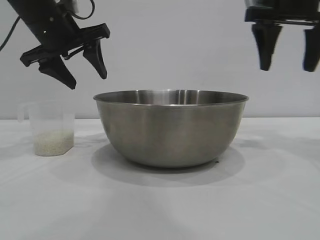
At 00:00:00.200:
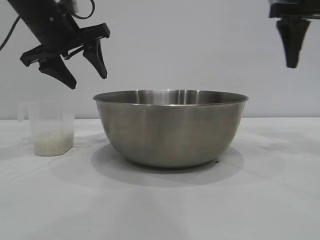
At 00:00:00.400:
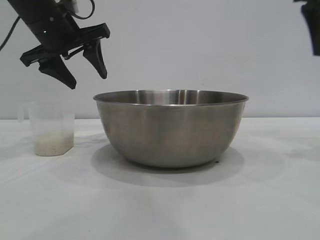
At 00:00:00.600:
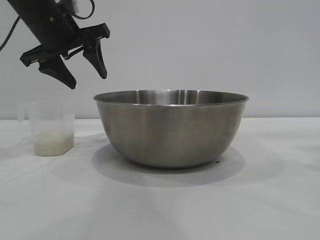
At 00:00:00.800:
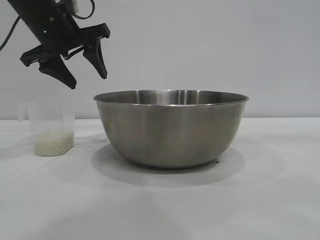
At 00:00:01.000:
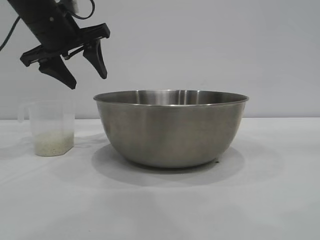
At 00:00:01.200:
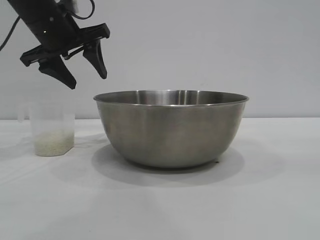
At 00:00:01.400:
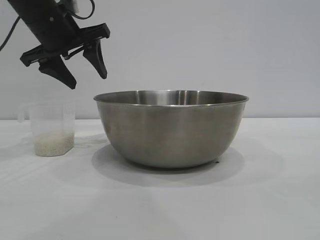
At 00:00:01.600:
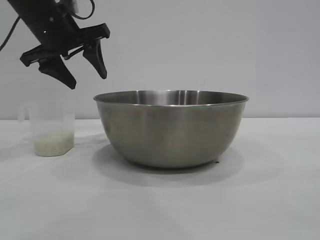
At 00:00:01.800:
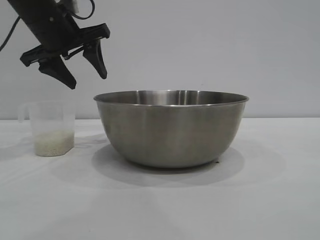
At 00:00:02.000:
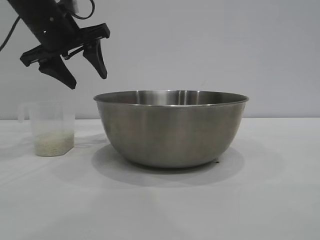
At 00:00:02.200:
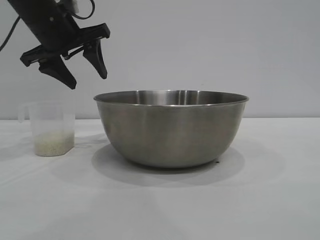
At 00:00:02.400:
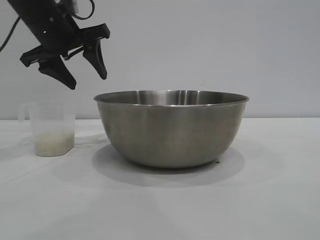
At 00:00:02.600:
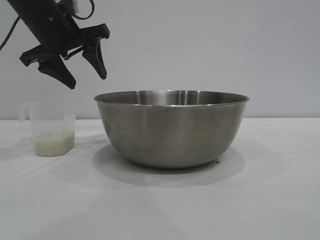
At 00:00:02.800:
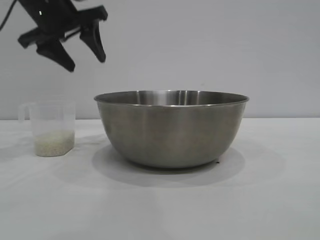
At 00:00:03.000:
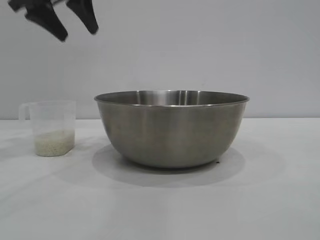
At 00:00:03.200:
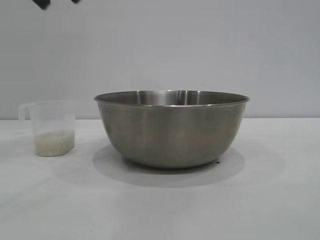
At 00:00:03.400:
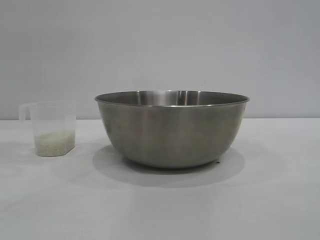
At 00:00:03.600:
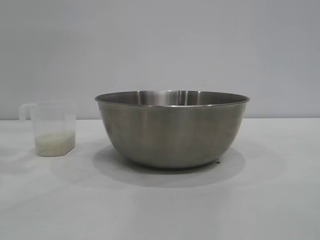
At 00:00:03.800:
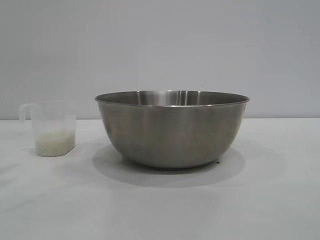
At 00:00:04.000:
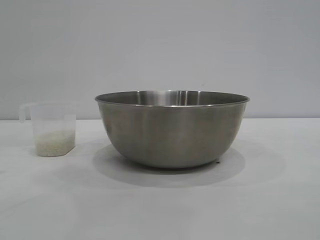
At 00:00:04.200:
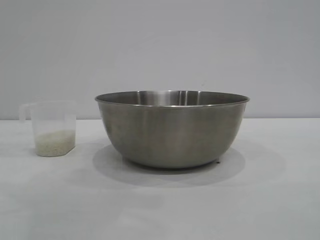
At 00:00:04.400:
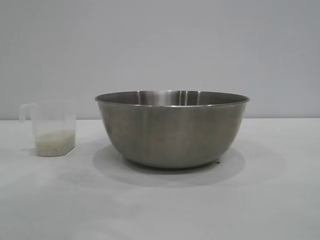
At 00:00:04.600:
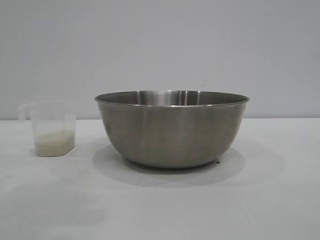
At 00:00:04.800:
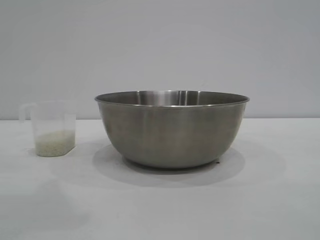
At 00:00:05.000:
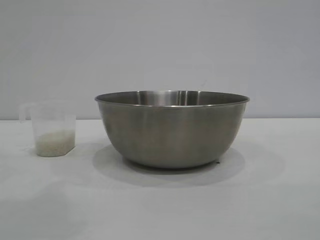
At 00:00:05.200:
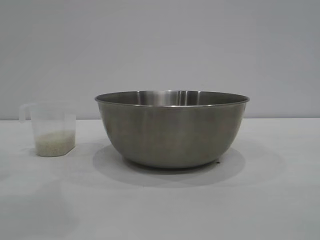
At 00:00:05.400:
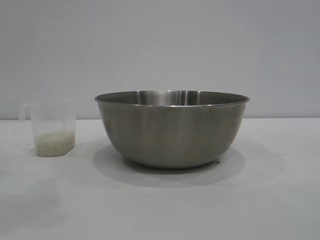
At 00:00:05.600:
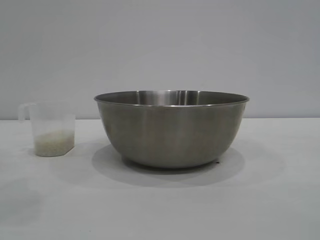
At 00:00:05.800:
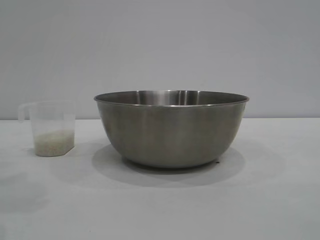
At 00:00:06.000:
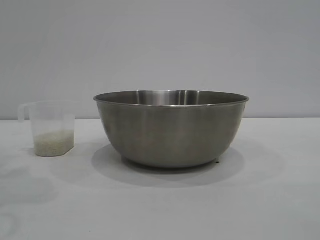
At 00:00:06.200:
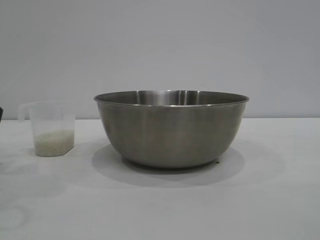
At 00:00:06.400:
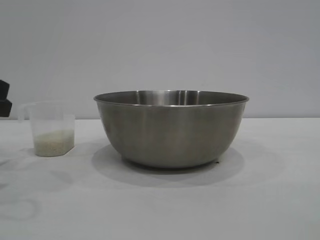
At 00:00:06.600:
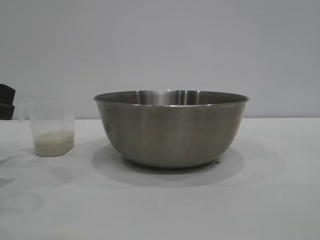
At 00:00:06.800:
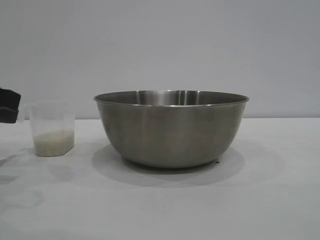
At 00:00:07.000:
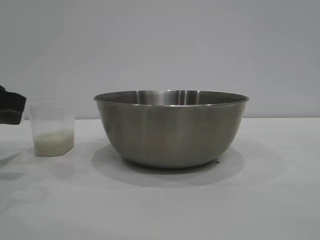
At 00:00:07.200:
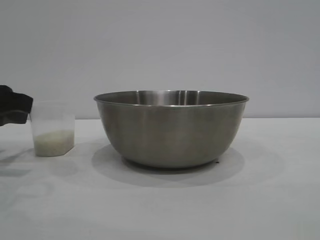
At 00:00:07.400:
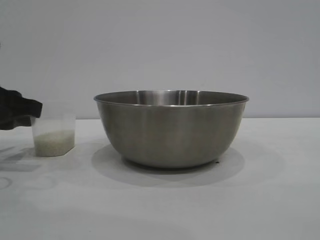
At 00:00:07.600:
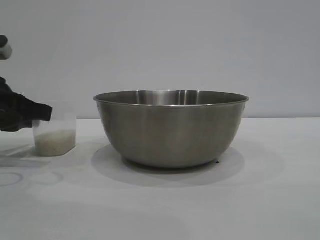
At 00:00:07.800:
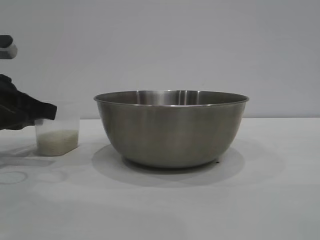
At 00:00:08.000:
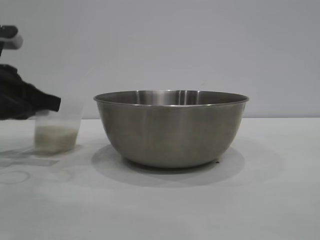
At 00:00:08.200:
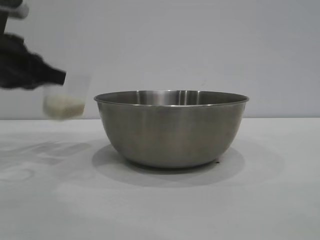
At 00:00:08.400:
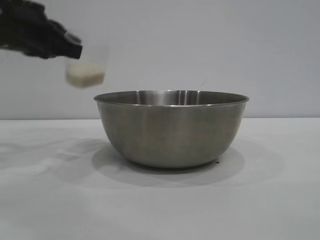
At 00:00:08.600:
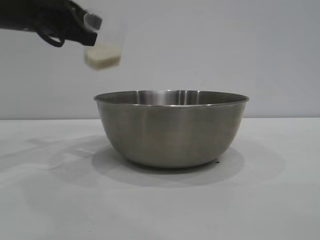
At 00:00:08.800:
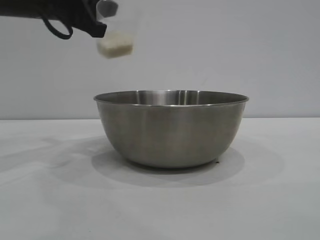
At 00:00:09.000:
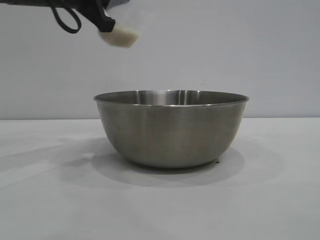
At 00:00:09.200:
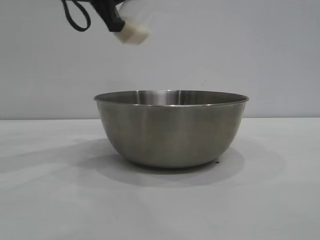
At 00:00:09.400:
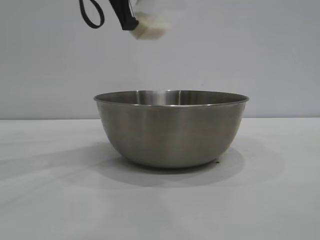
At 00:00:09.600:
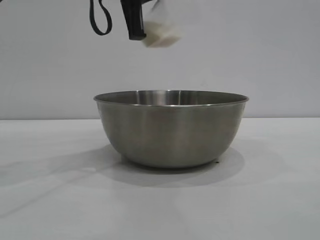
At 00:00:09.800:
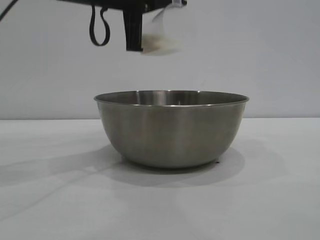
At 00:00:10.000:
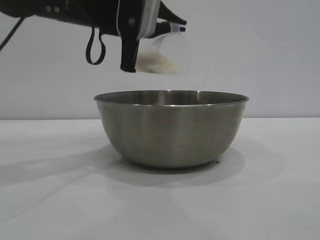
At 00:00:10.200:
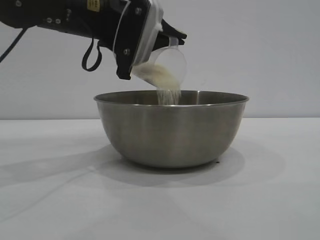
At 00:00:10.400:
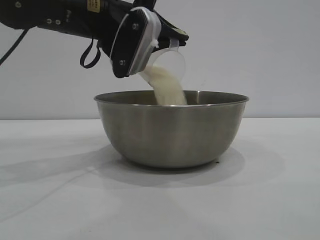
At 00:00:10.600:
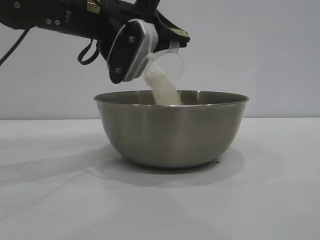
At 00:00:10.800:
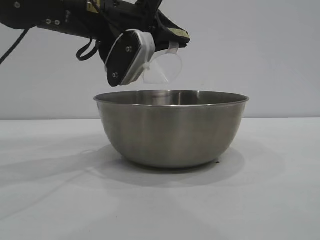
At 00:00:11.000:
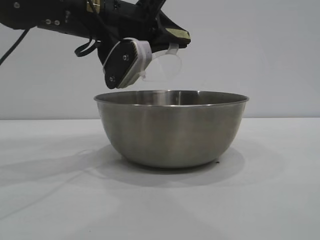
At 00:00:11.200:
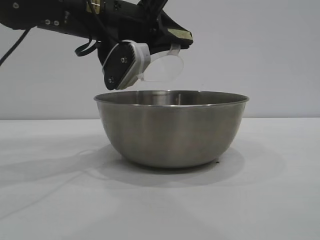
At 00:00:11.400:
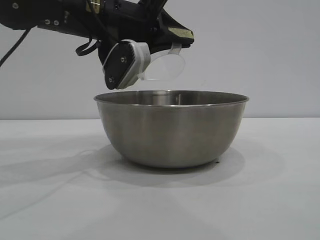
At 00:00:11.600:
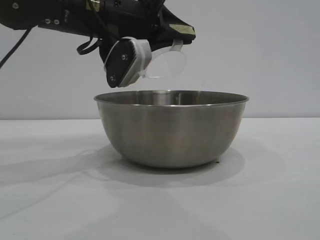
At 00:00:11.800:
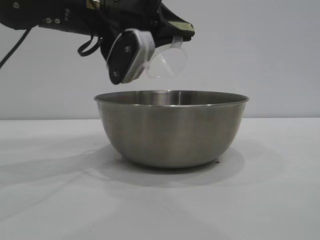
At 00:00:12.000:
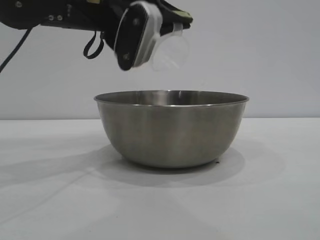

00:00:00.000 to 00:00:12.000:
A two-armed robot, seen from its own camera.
Task of the whole recording: the right gripper grasp the rice container and place it in the center of the table, the left gripper grasp the rice scoop and pour the rice into the rice container.
Step, 00:00:00.000 to 00:00:08.000: Pick up the cup with rice in it with the left gripper.

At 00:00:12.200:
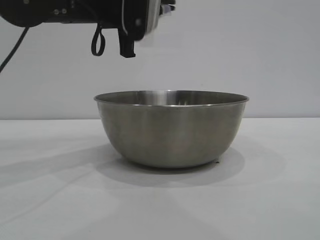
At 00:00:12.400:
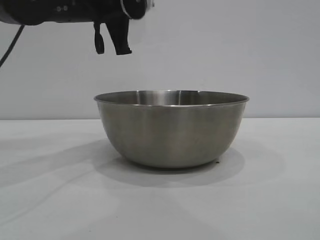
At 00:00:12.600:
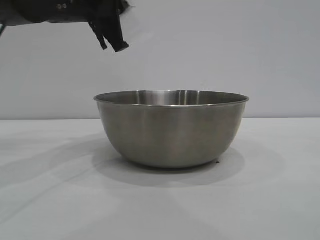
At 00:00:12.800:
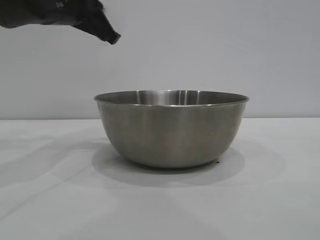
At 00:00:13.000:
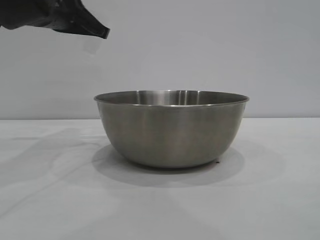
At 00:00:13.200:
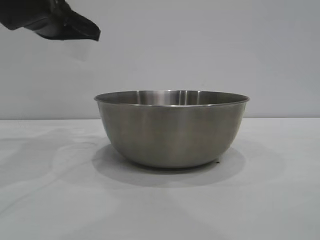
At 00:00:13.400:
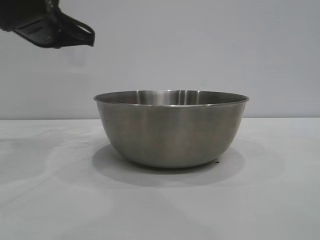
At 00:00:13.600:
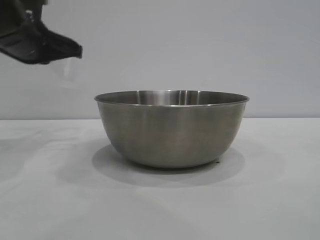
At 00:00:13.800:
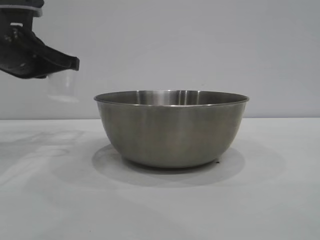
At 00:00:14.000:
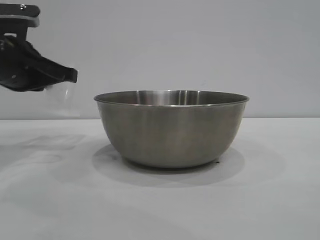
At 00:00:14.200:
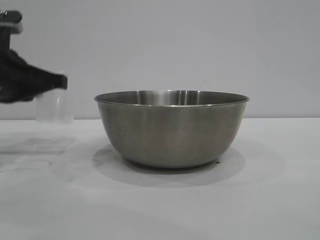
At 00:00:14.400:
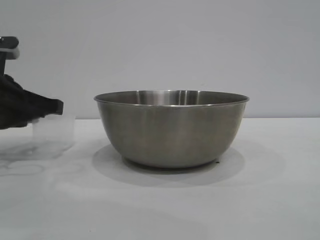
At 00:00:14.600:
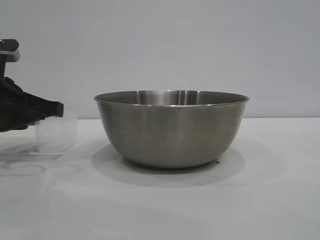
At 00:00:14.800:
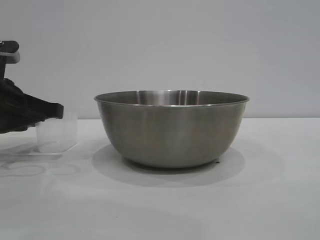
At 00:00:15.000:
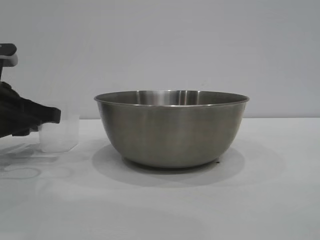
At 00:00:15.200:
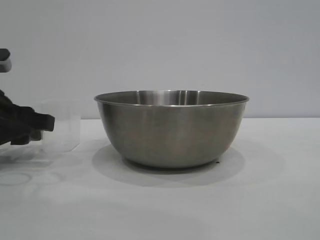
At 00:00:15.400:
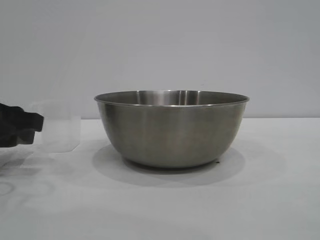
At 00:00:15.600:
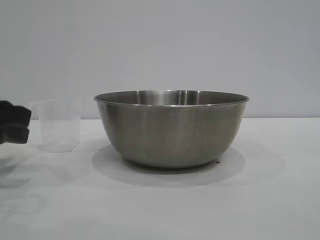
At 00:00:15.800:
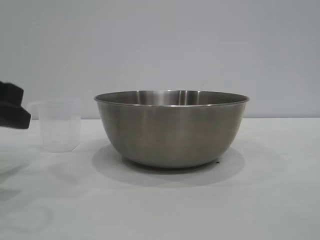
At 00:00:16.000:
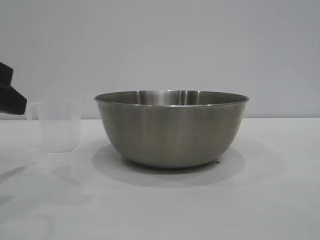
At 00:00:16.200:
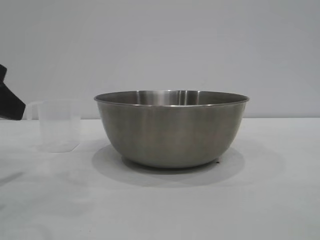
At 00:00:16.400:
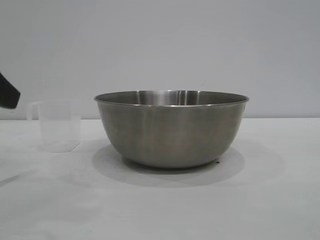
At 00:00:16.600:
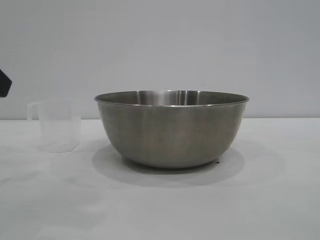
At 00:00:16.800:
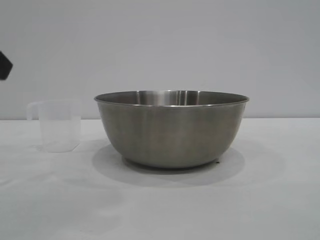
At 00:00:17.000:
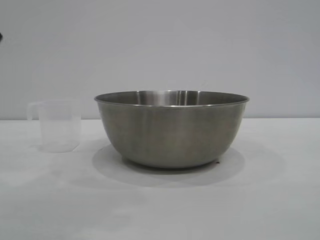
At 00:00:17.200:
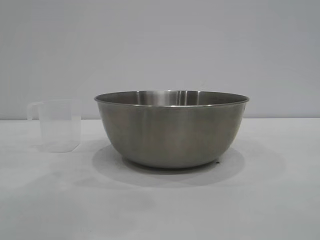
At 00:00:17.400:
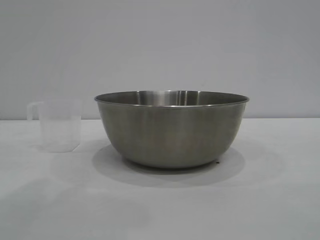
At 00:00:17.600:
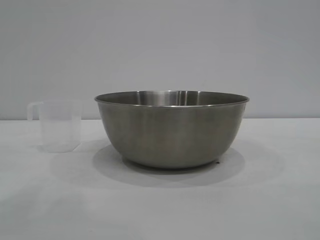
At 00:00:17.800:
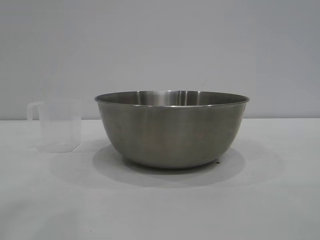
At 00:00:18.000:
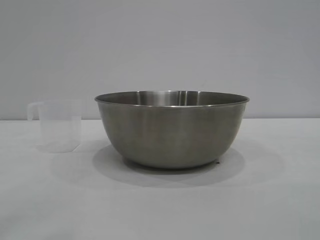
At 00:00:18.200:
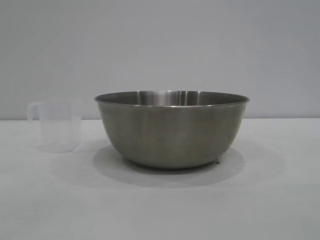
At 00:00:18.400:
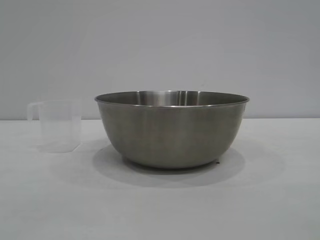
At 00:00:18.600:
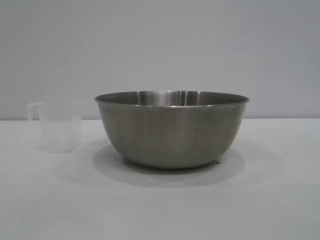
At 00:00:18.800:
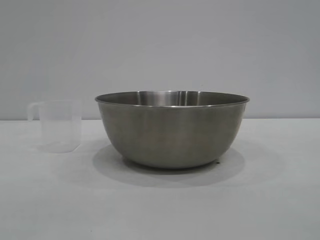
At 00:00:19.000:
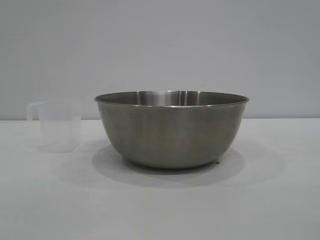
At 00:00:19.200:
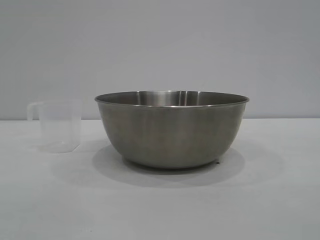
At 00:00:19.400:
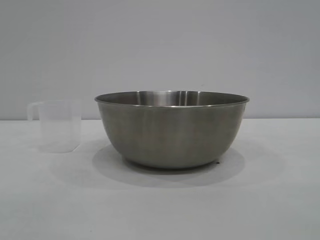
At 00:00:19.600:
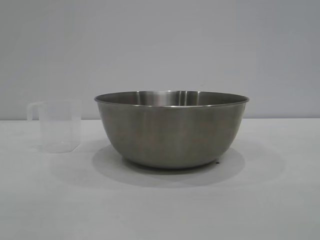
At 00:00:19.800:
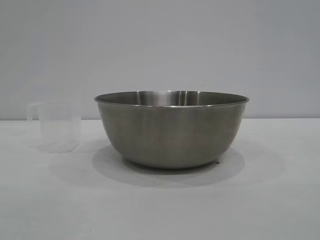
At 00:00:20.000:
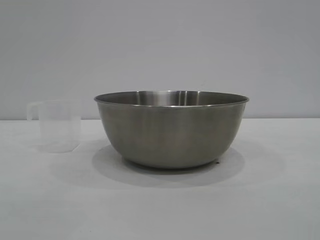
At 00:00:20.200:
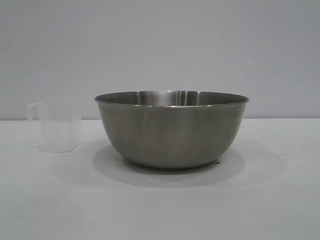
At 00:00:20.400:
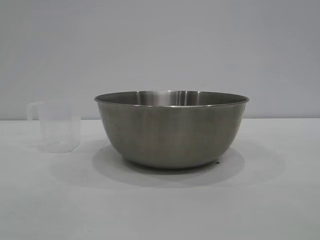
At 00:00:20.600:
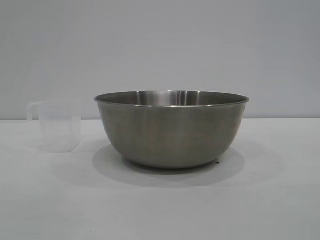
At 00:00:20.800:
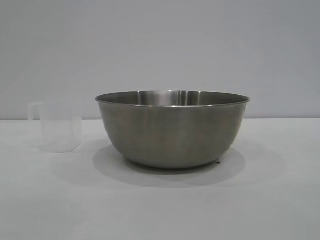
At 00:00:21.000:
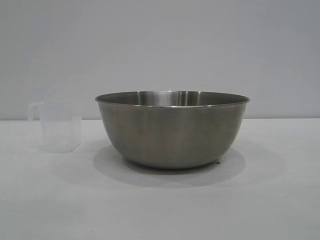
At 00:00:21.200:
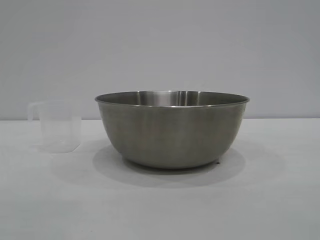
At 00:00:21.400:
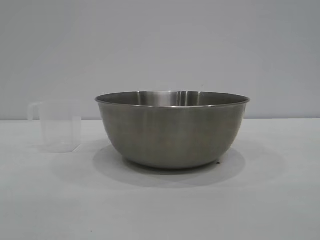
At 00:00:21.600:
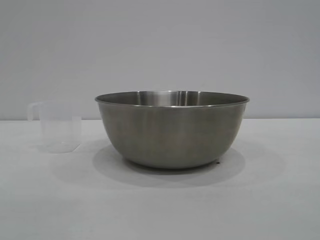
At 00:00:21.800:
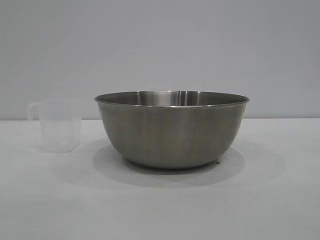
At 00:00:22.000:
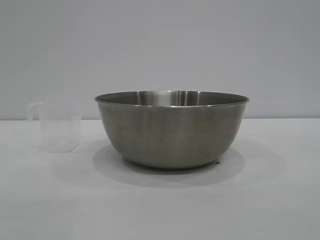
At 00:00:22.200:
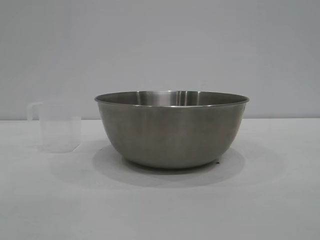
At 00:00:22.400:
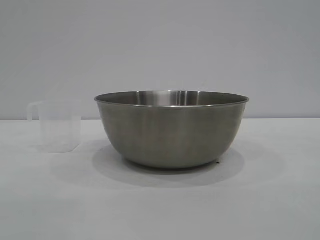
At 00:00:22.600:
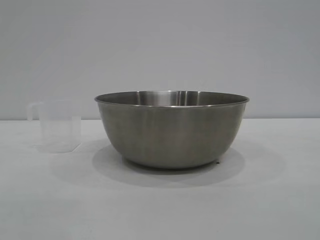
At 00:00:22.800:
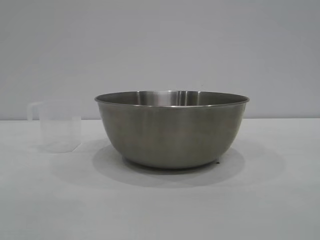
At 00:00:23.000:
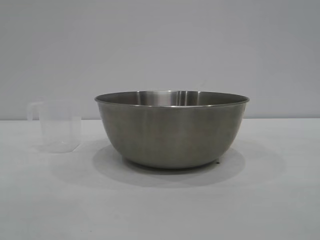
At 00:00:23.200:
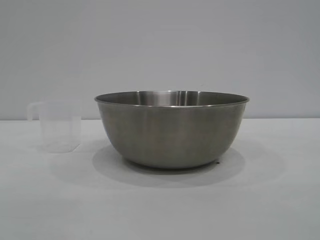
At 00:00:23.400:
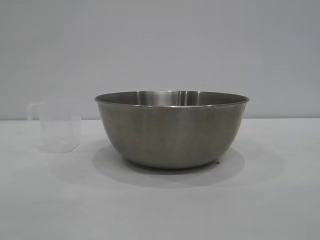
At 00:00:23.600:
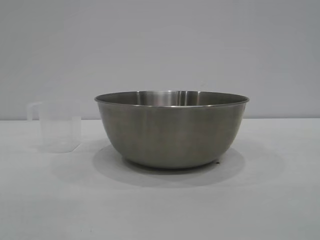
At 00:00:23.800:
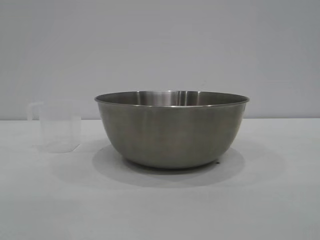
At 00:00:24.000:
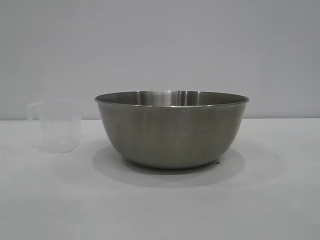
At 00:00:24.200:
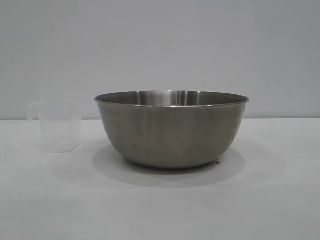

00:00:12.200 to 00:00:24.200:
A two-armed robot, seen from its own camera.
Task of the whole recording: the right gripper grasp the rice container and place it in the center of the table, the left gripper grasp the rice scoop and pour the rice into the rice container.
Step, 00:00:12.400 to 00:00:15.800: Place the cup on the table with the left gripper.
